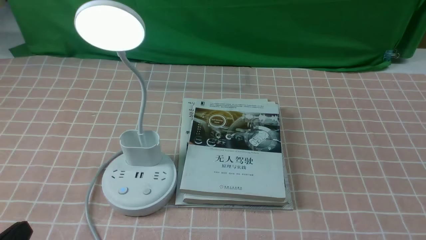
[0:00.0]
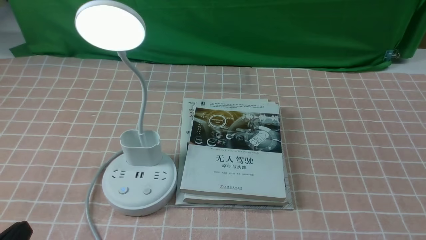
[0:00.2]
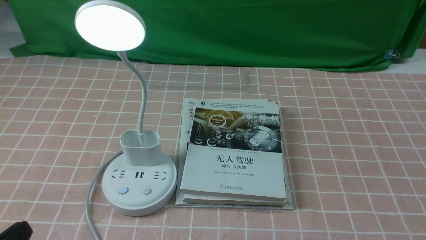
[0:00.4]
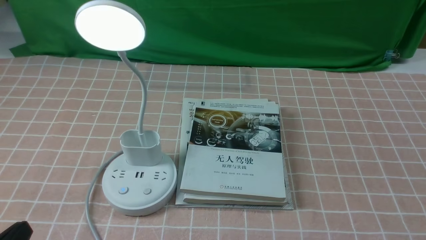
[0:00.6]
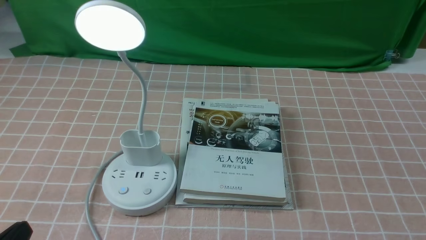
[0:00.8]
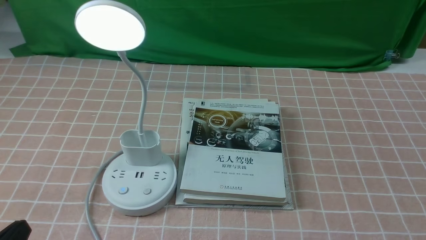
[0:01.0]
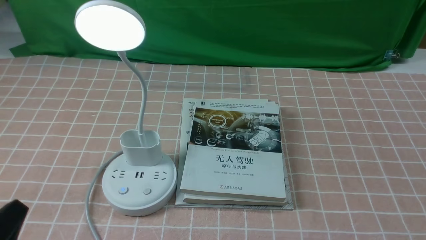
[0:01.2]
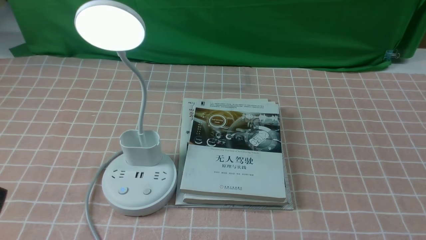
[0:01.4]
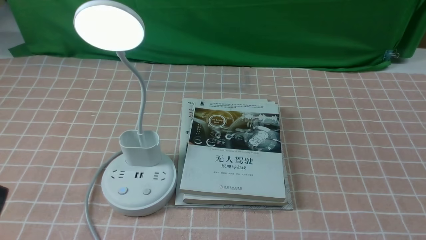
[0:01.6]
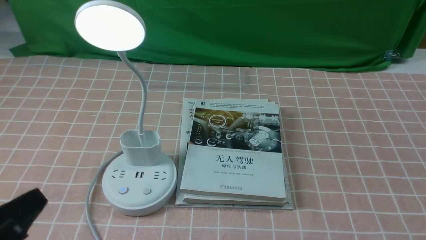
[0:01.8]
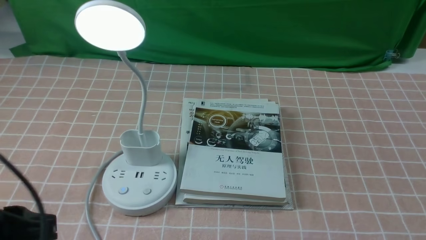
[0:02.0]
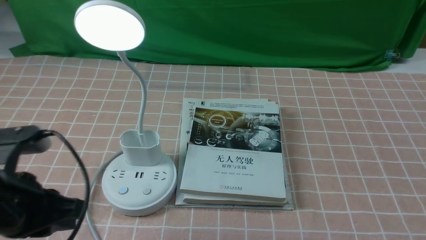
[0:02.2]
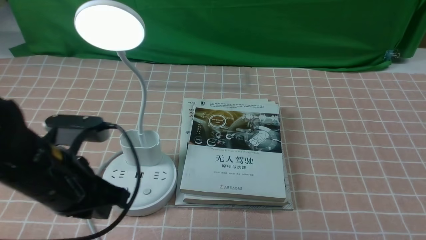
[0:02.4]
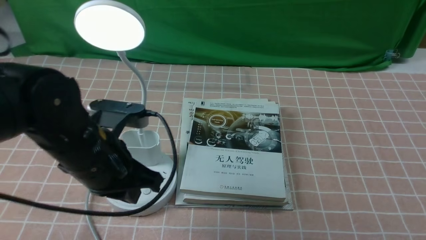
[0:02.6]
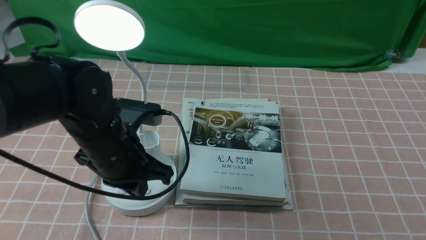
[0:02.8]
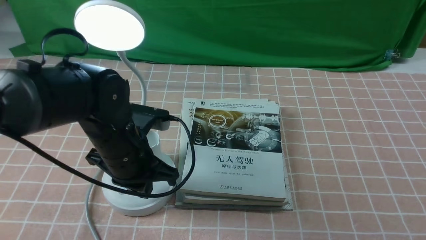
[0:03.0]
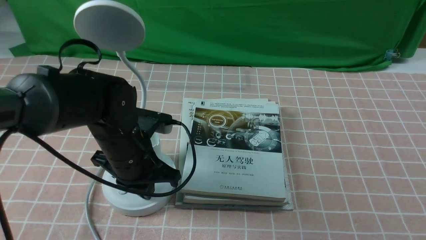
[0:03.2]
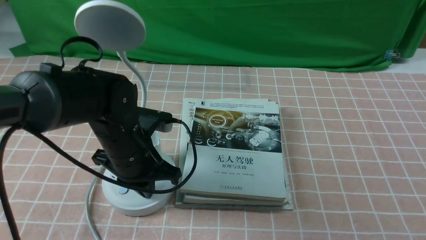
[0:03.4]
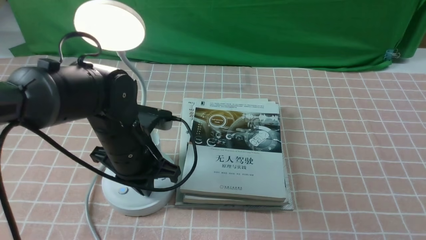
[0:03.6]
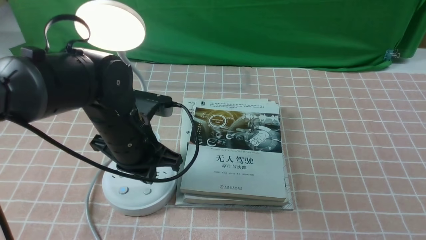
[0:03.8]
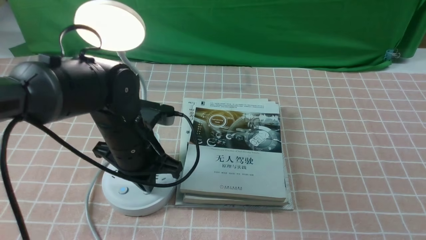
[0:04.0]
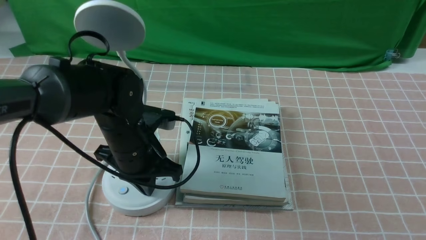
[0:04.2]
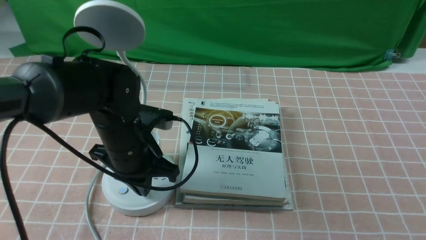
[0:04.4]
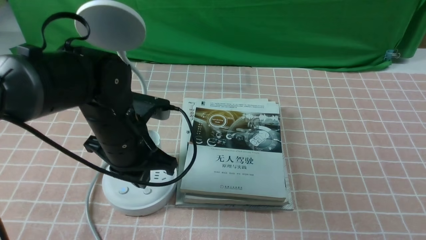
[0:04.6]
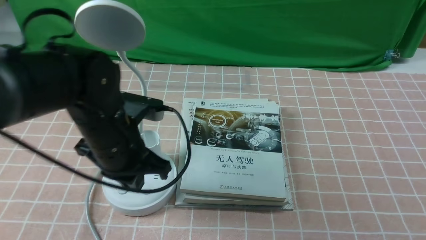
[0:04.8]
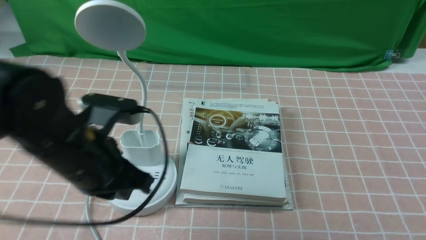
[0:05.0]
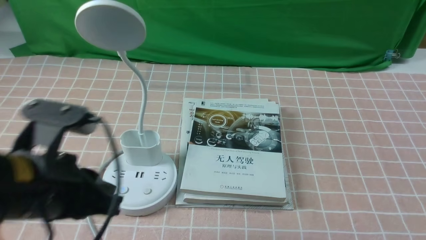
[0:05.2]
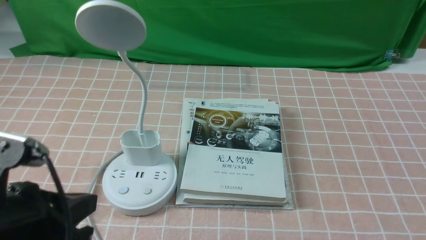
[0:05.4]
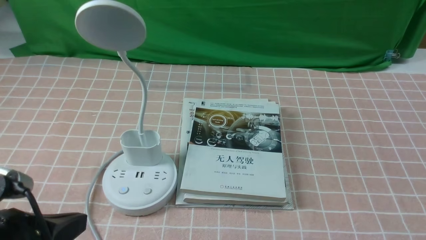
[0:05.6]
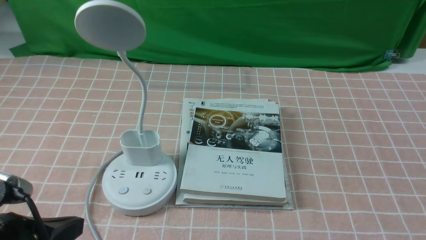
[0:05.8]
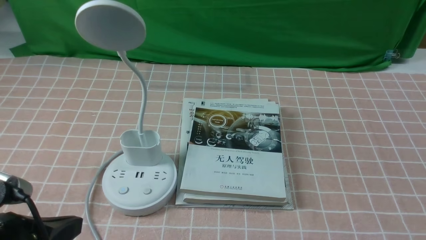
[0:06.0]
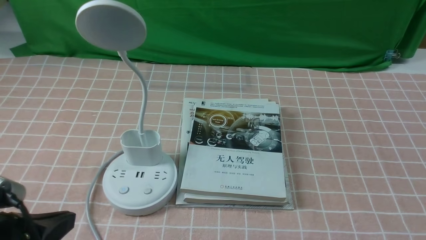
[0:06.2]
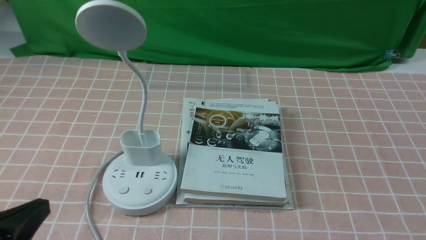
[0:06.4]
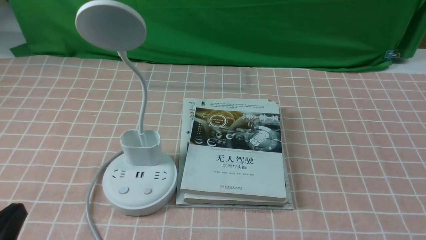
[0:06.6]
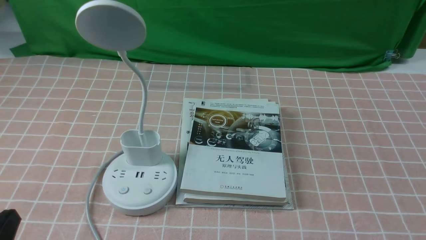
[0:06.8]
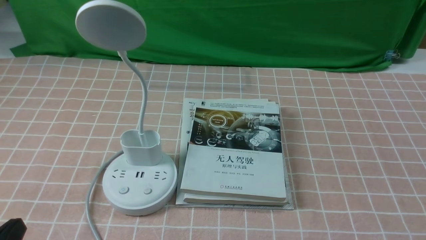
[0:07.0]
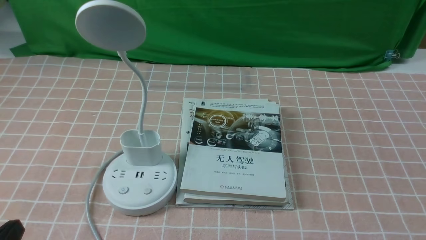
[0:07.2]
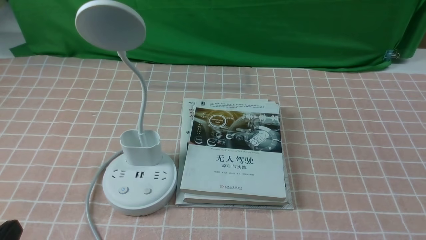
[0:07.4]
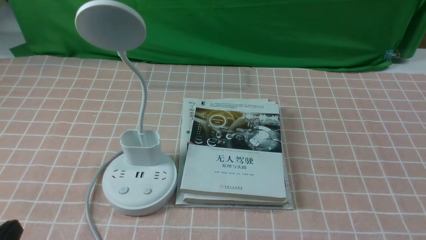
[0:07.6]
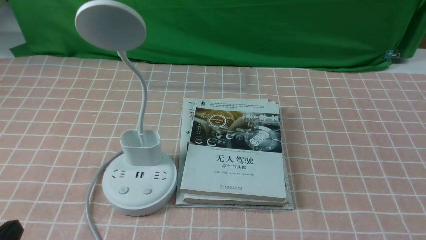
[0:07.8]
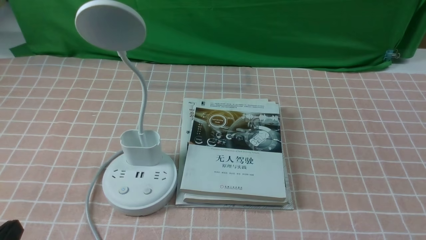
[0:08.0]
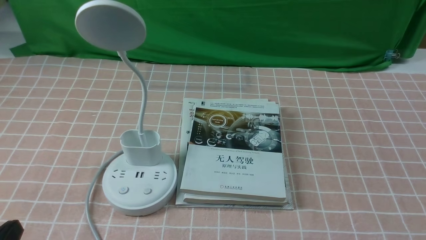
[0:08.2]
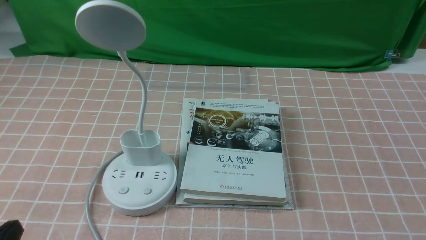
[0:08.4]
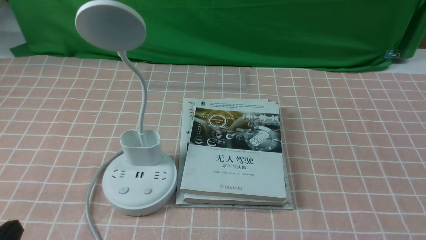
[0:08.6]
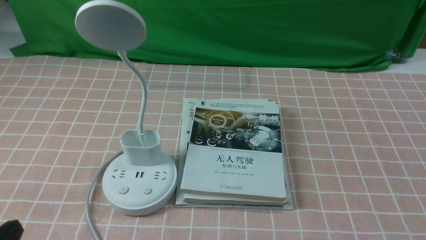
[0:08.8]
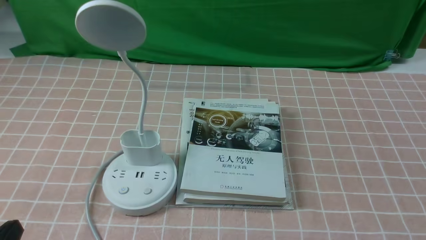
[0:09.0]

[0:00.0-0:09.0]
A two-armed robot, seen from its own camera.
Task of the whole recording: turn off the table lamp on the pink coffee tablecloth by hand.
Step, 0:00.0 to 0:04.6: use the left arm to press the button switch on the lamp holder.
0:00.0 to 0:01.6: The left gripper moves approximately 5 cm.
0:01.6 to 0:03.0: The left gripper is displaced forward and to the right by about 25 cm, and closes up.
0:03.0 to 0:04.4: The grippers stay close to where they were, moving slightly.
0:04.4 to 0:06.0: The left gripper travels backward and to the left by some 25 cm.
0:06.0 to 0:07.6: The left gripper travels downward by about 5 cm.
0:07.6 to 0:09.0: Both grippers stay put.
